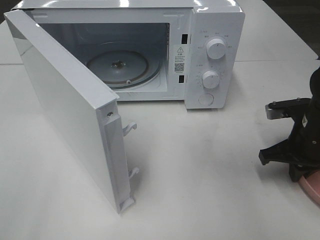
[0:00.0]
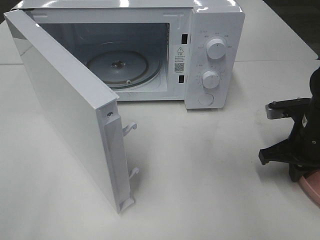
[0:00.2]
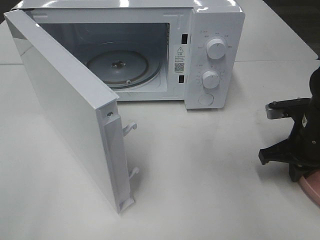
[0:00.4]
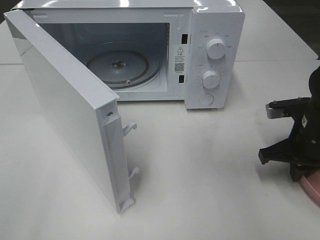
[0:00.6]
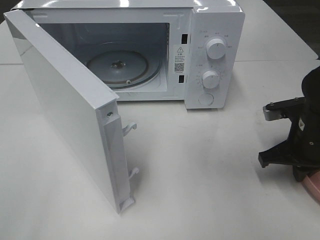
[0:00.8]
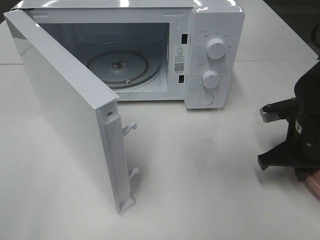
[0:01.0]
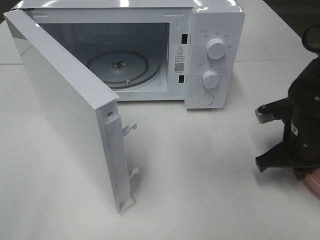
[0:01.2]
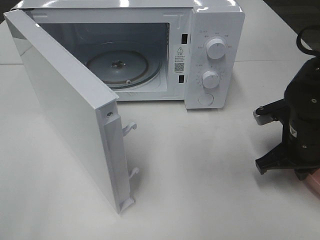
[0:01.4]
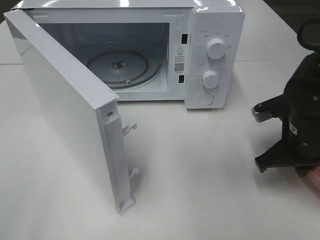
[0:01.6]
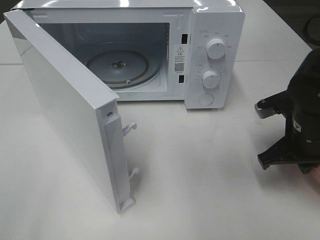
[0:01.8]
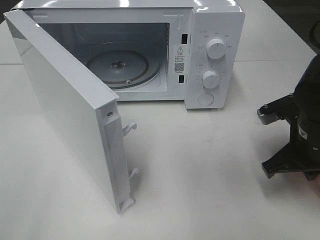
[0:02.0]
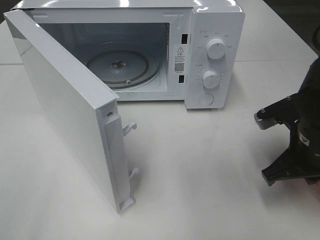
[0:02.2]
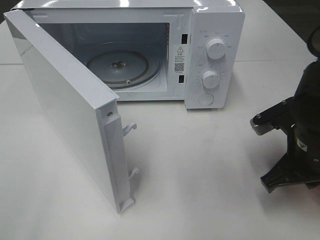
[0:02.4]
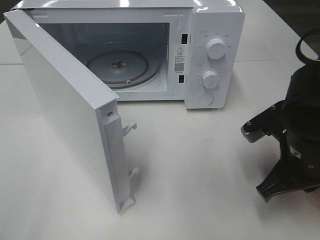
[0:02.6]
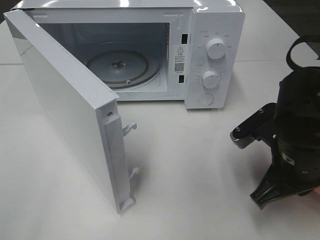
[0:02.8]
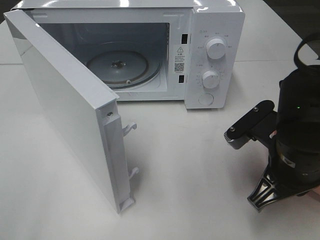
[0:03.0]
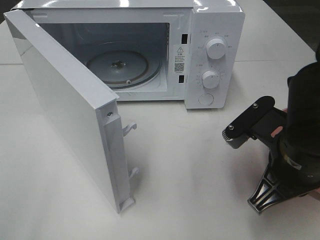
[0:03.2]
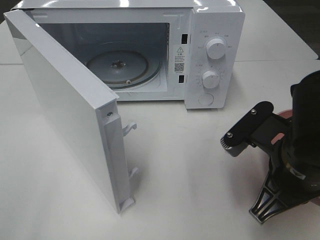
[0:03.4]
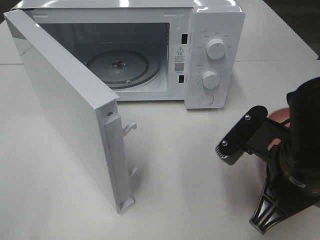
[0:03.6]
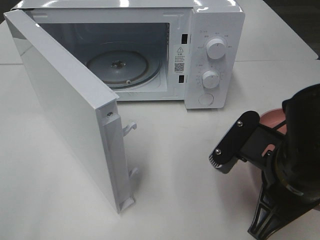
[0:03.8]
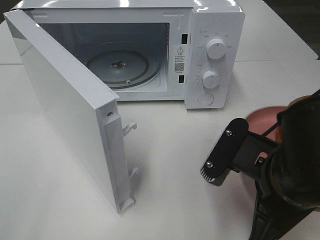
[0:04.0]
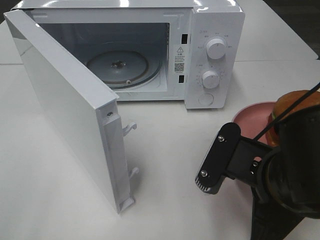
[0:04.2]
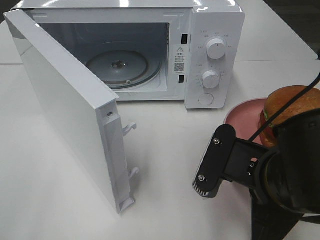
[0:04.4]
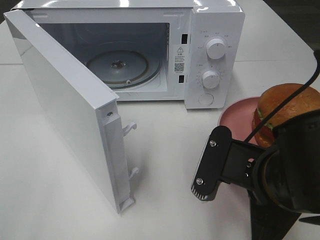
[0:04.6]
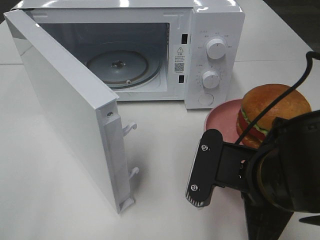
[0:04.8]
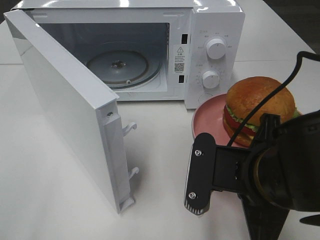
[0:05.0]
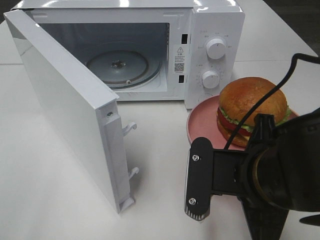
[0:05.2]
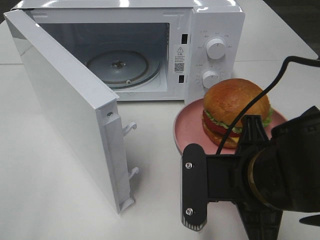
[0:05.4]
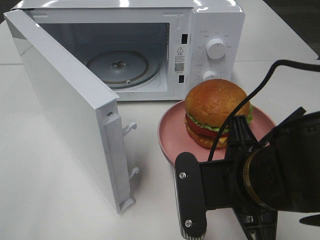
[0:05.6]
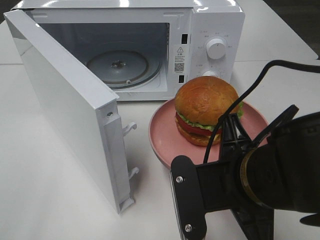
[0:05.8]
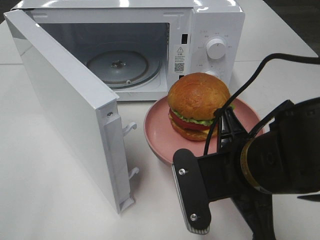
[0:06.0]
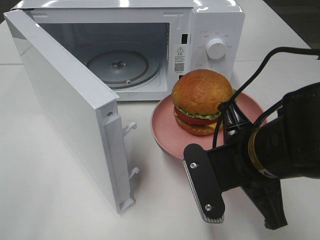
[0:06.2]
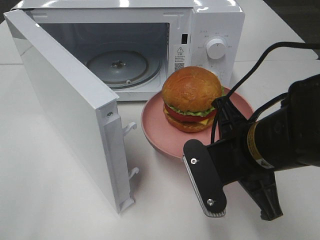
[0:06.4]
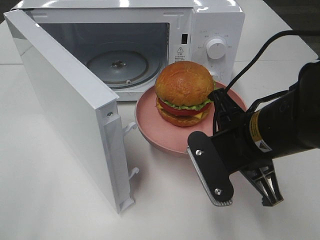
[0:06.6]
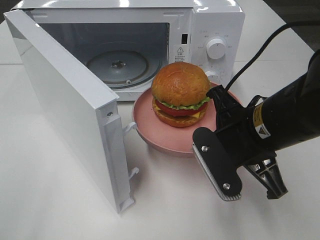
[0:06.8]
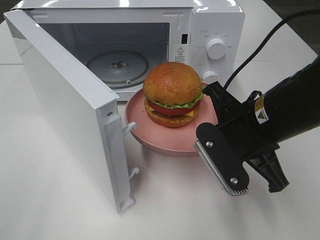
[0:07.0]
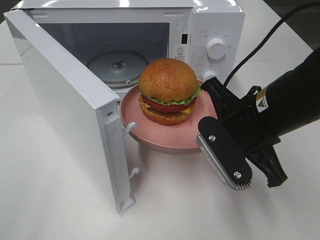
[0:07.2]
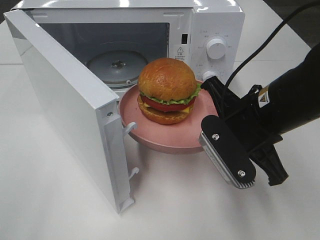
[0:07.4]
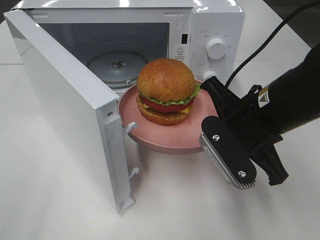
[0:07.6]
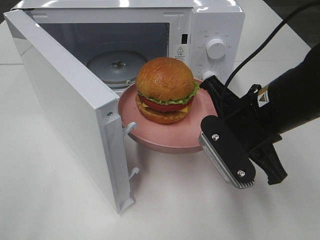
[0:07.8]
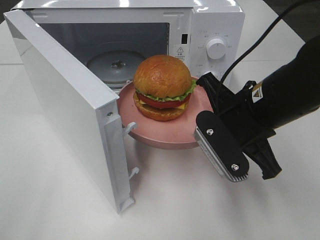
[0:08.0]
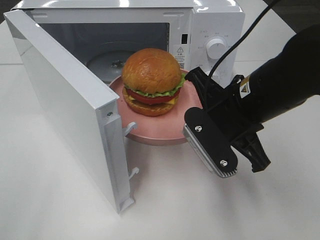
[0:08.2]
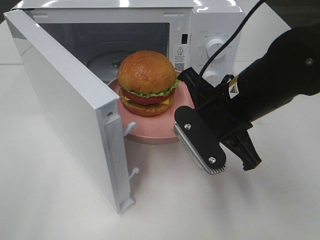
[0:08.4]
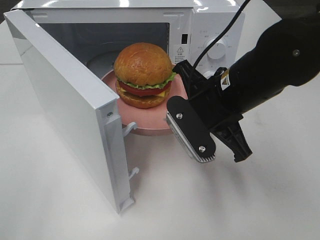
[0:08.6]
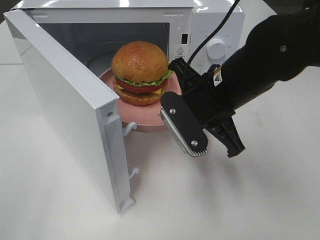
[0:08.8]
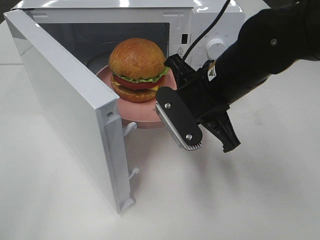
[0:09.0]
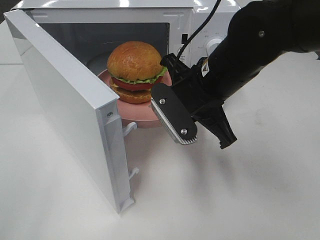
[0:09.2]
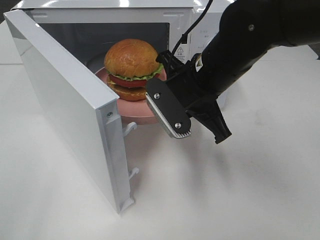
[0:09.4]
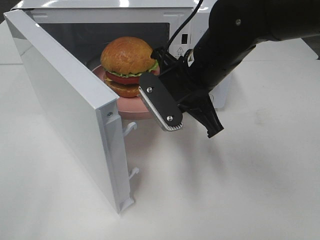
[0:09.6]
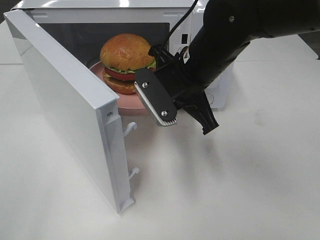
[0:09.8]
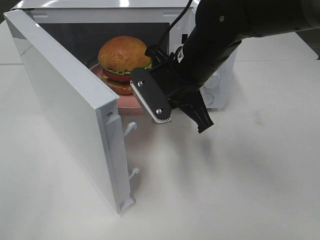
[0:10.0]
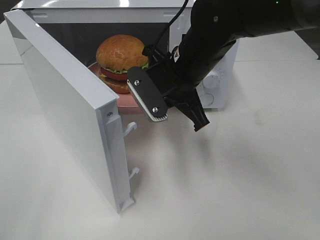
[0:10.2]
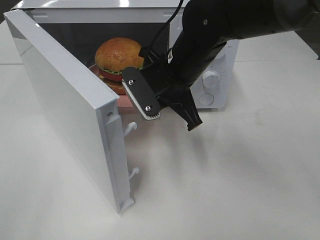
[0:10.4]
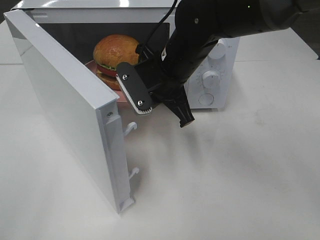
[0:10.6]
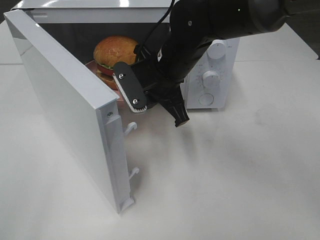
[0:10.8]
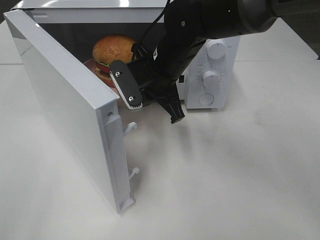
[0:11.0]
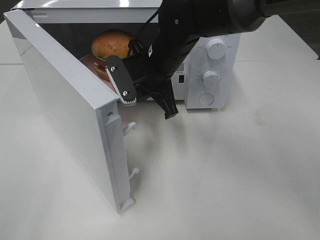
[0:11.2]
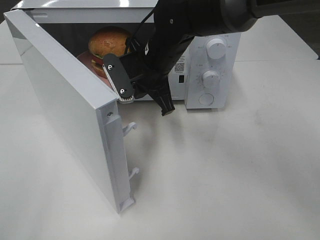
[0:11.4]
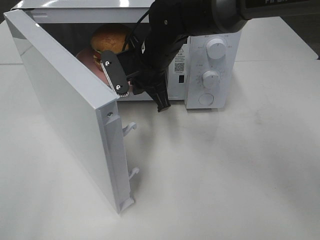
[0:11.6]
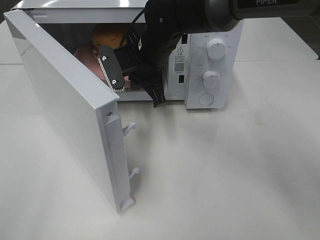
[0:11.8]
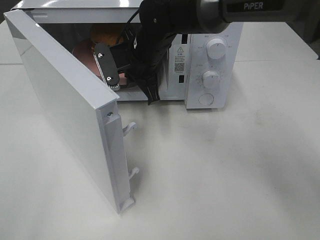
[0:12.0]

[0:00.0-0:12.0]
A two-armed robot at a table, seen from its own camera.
Task of the whole recording: Heat the burger.
0:00.0 to 0:01.6: The grippers stay close to where they were, moving slightly.
0:01.6 to 0:03.0: The right gripper heads backward and to the left, covering roughly 10 cm.
0:03.0 to 0:04.4: The right gripper shifts roughly 5 cm backward.
0:06.0 to 0:07.6: The right gripper moves forward, roughly 5 cm.
0:07.6 to 0:09.0: The right gripper heads to the left, covering roughly 5 cm.
0:09.0 to 0:10.4: The right gripper heads forward, covering some 5 cm.
0:10.4 to 0:12.0: The right gripper moves forward and to the left, roughly 10 cm.

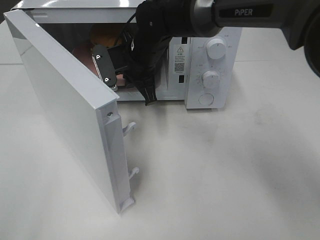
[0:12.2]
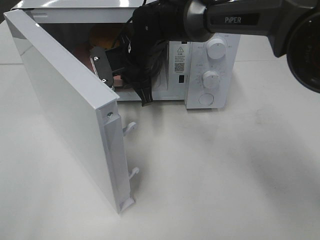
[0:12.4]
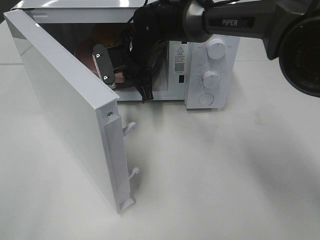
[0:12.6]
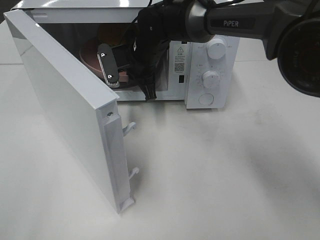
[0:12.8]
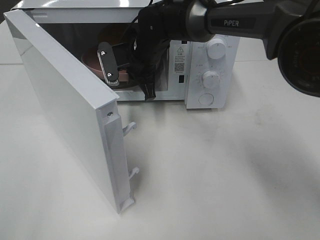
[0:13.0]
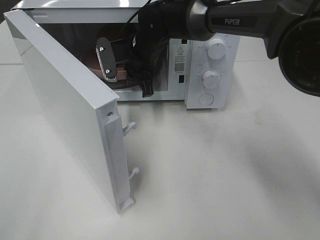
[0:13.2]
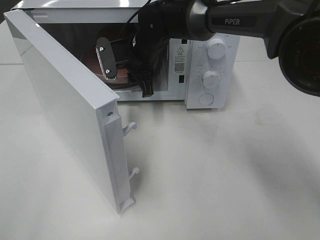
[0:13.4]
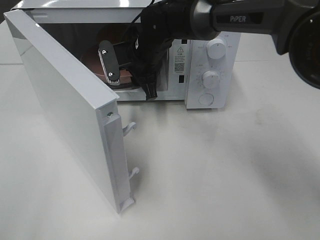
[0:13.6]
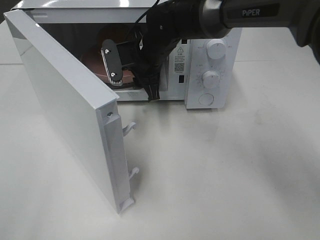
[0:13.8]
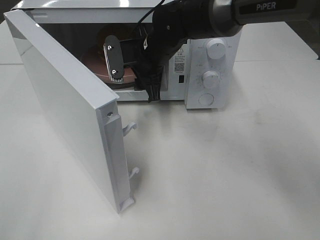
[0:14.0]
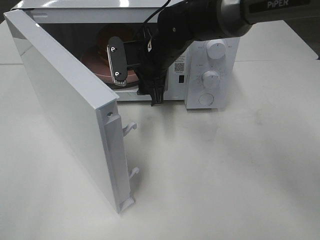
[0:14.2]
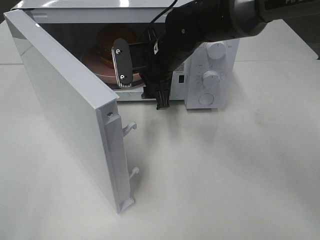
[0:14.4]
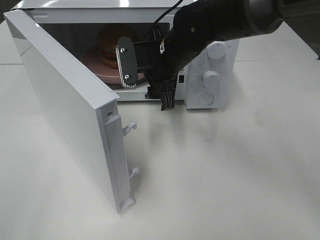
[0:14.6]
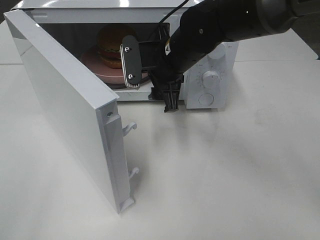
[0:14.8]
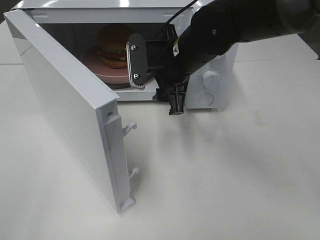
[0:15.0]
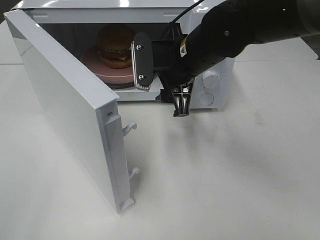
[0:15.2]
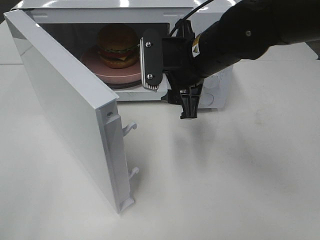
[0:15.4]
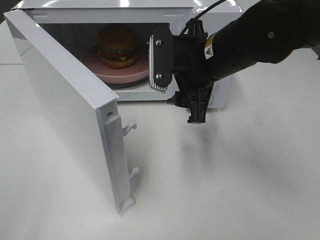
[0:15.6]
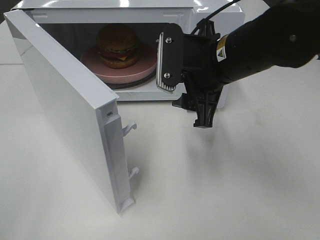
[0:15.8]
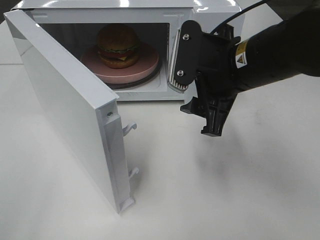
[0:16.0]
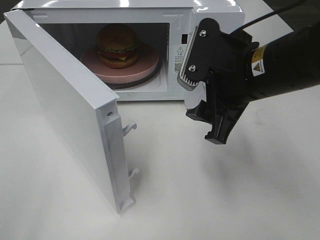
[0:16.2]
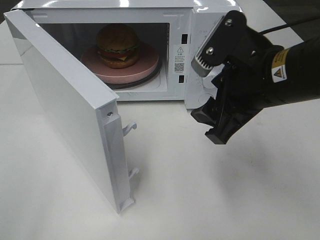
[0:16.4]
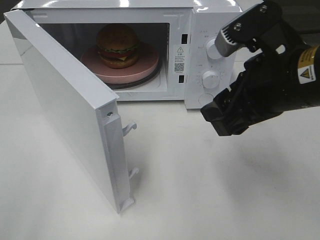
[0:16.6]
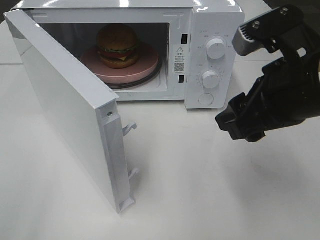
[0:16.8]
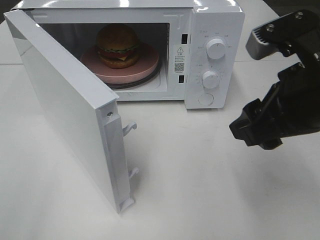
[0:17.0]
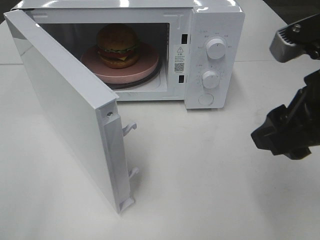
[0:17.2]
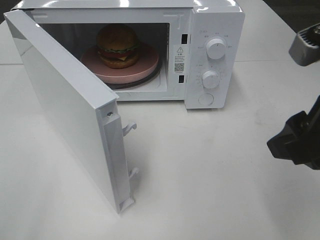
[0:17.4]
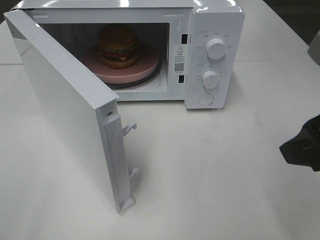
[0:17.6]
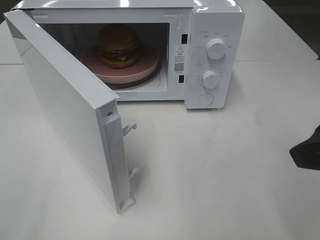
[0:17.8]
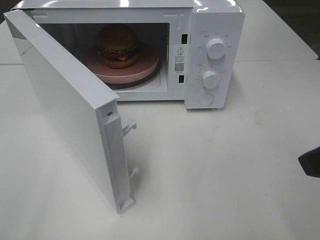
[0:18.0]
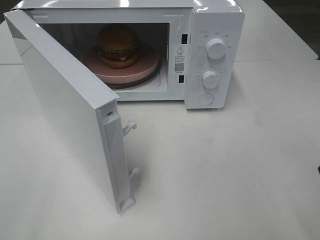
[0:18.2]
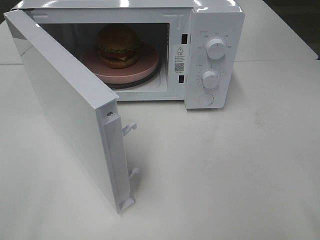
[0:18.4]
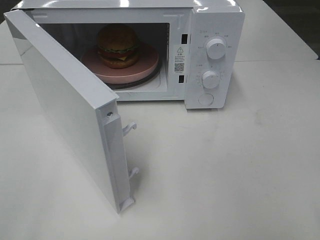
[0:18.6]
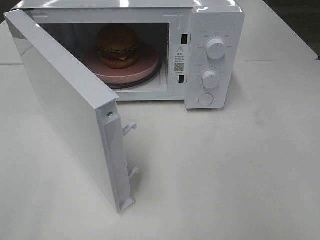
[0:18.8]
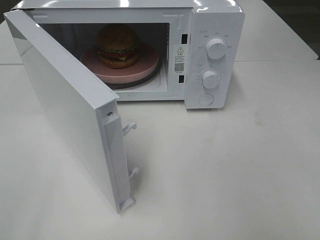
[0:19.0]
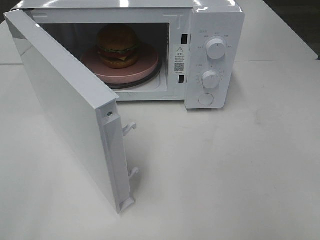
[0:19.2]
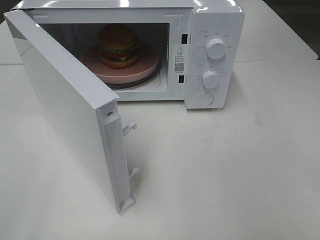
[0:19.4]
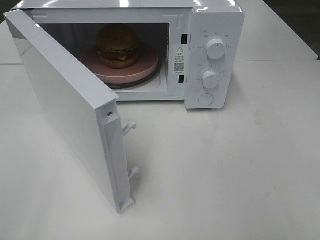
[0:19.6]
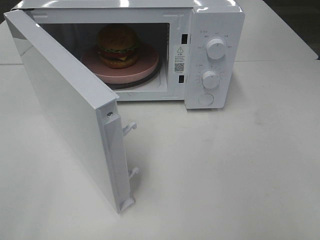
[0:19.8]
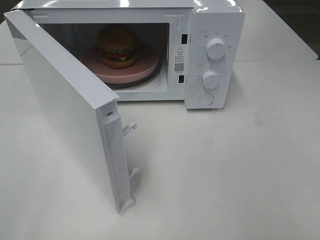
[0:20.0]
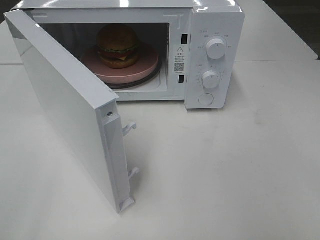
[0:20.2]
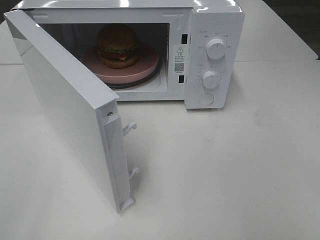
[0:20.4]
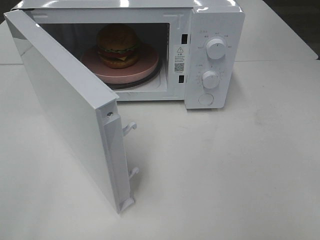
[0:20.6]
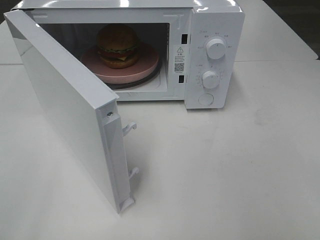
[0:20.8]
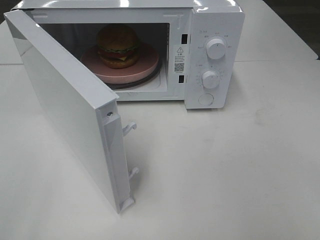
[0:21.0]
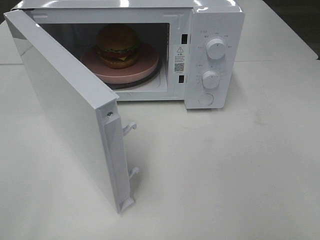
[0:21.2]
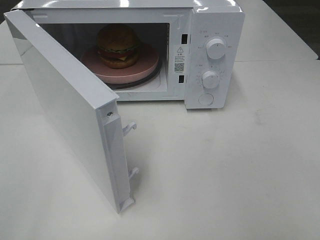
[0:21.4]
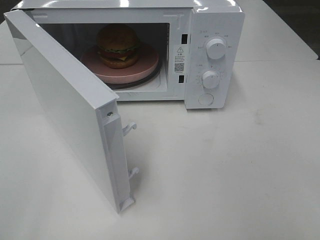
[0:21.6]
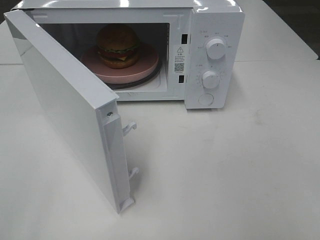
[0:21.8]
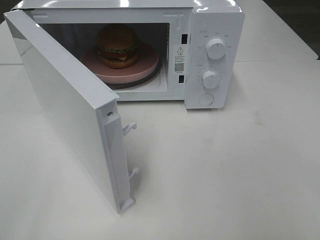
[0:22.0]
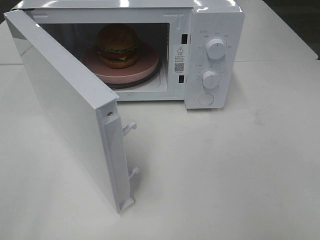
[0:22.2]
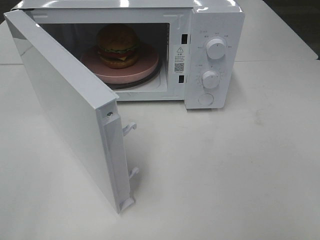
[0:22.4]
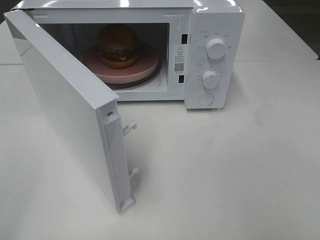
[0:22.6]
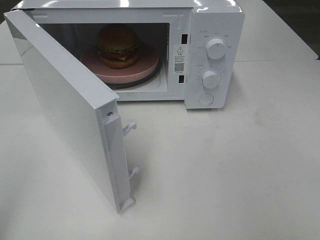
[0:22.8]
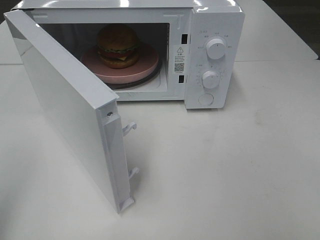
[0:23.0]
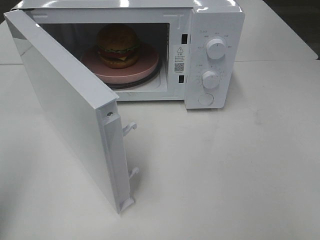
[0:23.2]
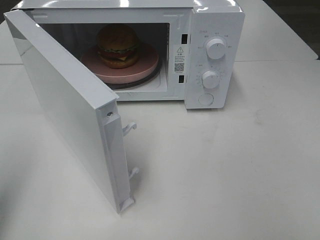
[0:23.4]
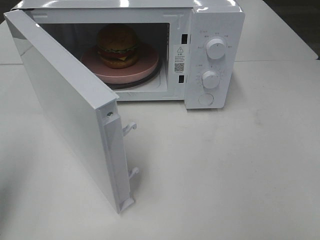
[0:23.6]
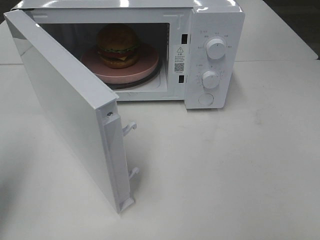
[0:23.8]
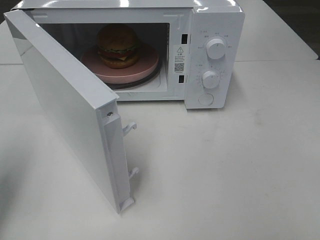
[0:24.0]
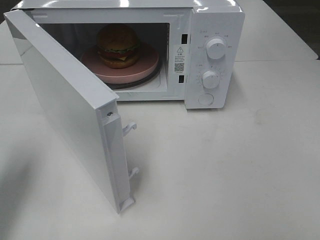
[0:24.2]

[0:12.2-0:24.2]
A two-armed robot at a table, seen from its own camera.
Task of the whole recording: Heat the burger.
0:12.2 to 0:13.8: The right gripper opens its fingers.
0:13.8 to 0:15.2: The right gripper heads backward and to the right, covering some 10 cm.
0:15.2 to 0:16.6: The right gripper travels backward and to the right by roughly 15 cm.
0:16.6 to 0:18.2: The right gripper goes some 15 cm backward and to the right.
0:19.8 to 0:21.2: Both grippers stay about where they are.
0:22.6 to 0:24.2: The left gripper travels forward and downward by about 20 cm.
